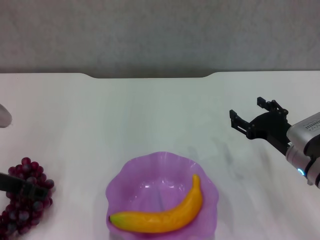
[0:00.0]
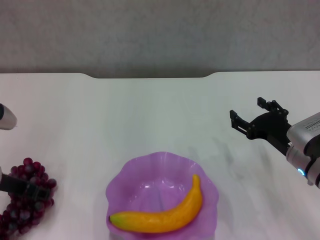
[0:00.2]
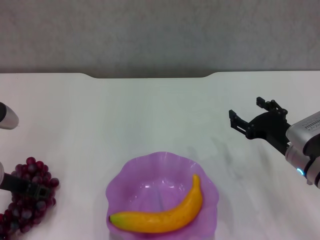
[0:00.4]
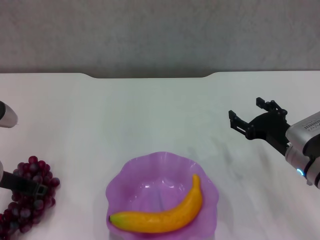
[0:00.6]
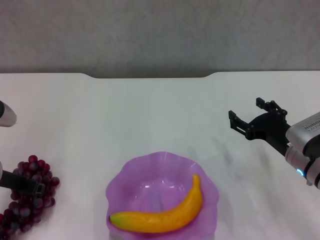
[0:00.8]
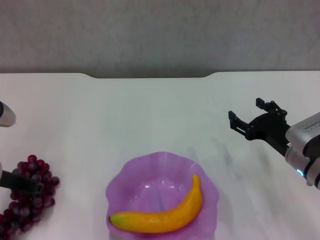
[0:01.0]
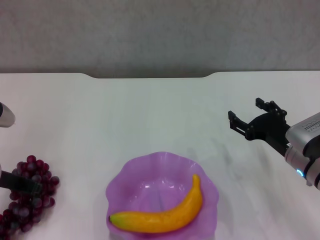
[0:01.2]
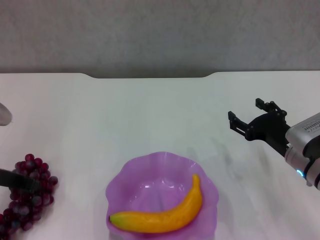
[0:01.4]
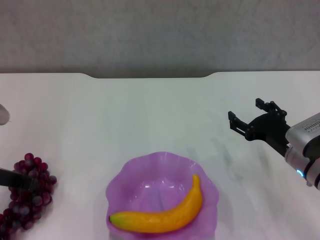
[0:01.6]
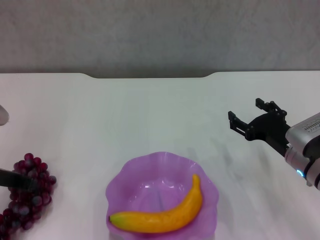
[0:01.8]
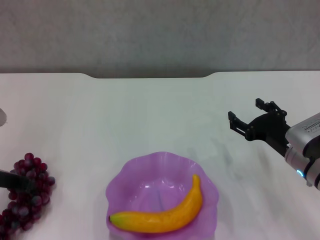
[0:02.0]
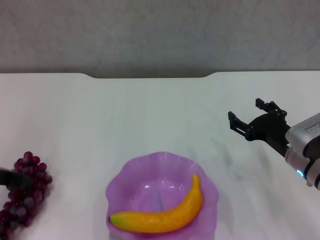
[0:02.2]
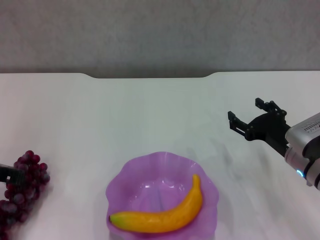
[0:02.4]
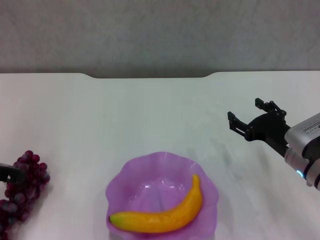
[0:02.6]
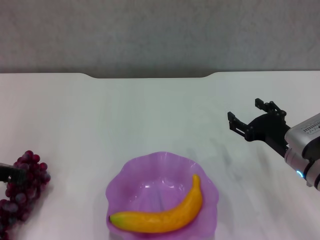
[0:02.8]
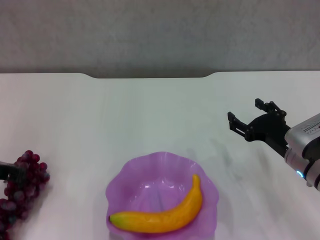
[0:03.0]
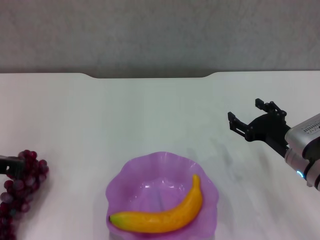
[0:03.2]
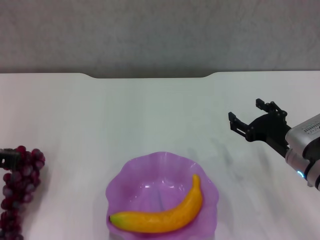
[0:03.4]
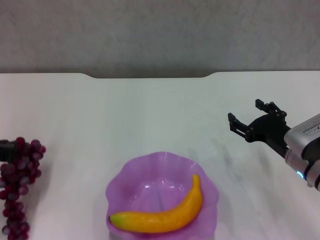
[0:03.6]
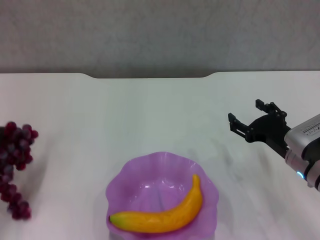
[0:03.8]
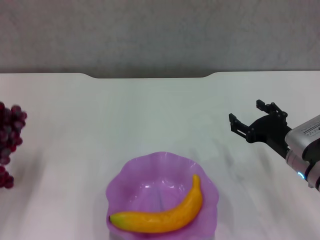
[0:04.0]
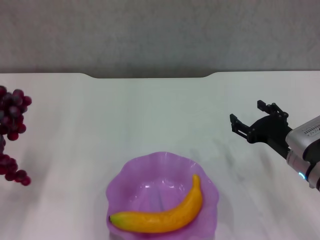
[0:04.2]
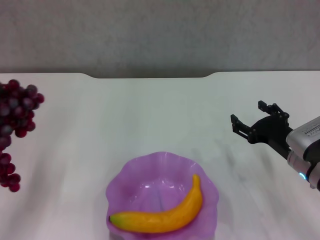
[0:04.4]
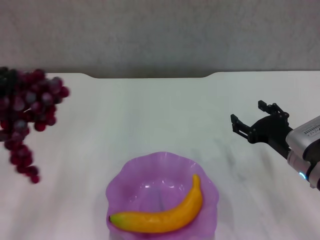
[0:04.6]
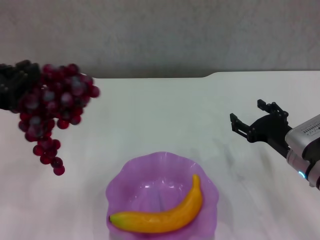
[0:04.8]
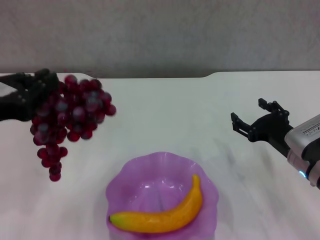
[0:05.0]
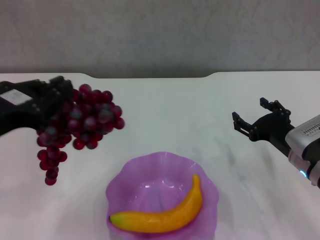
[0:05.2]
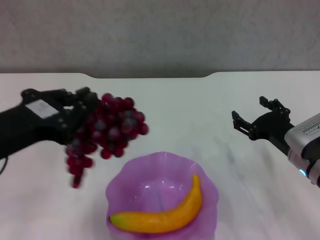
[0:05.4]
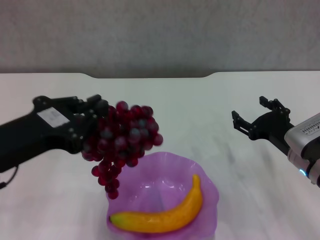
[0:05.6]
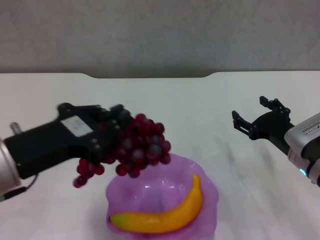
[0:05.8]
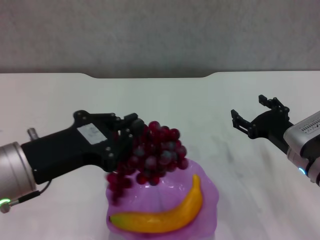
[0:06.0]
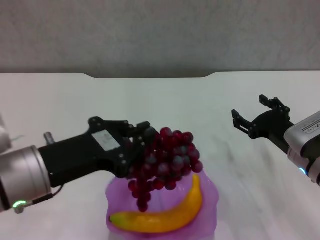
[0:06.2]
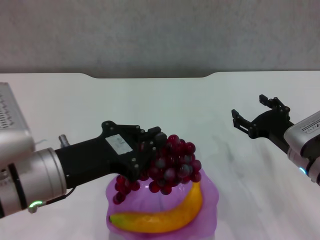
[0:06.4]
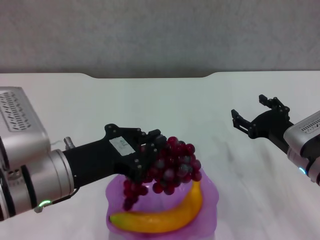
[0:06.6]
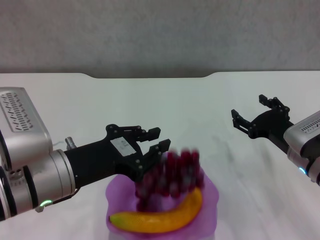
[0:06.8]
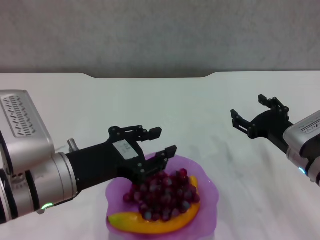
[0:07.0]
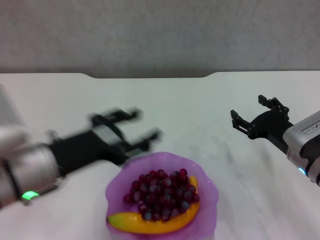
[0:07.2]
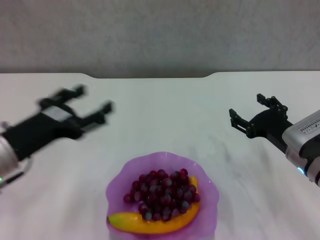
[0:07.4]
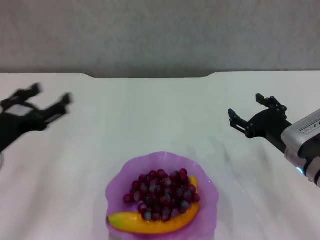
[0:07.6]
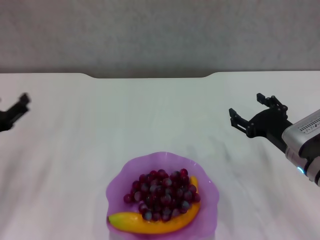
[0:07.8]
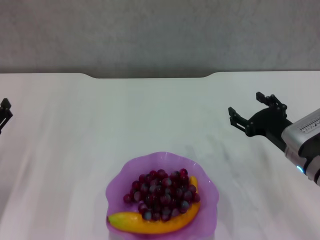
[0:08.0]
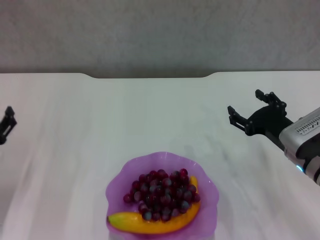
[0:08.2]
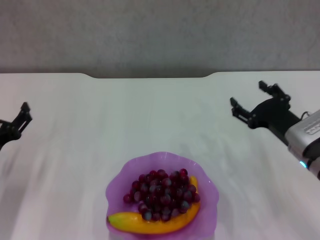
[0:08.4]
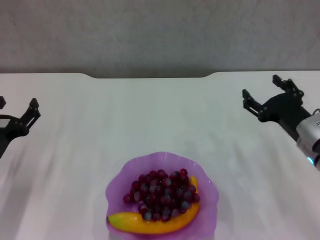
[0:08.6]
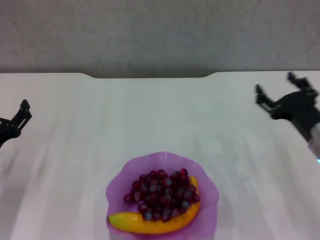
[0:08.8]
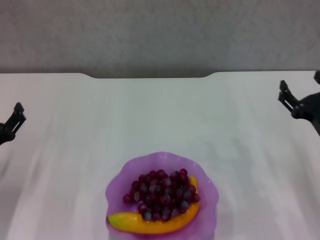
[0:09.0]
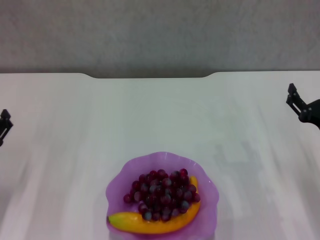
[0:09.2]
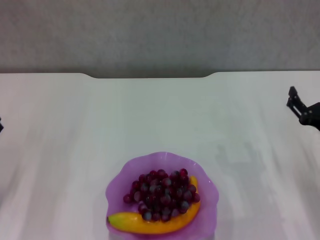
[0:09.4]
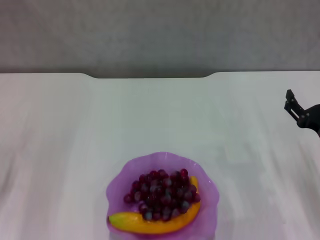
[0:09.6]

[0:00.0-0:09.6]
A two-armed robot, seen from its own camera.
Step, 0:00.8 to 0:07.0: Place the grape in the purple plate with left gripper.
0:00.0 to 0:01.6: The left gripper closes up.
0:01.6 to 0:03.2: The grippers move only a little.
0:03.2 to 0:04.8: The left gripper travels upward and backward by some 10 cm.
0:04.8 to 0:06.4: The left gripper moves to the right and downward, roughly 15 cm.
0:06.4 to 0:08.0: The left gripper is displaced to the left and downward by some 20 cm, and opens.
0:08.0 to 0:09.6: The right gripper changes place by approximately 5 cm.

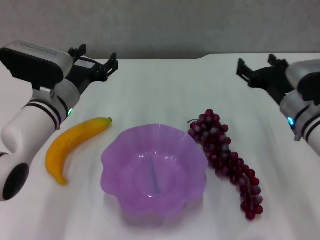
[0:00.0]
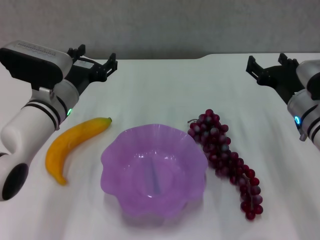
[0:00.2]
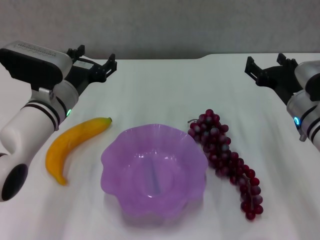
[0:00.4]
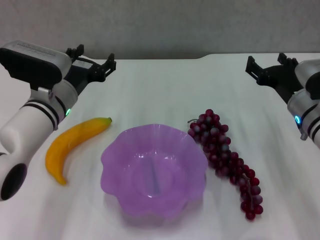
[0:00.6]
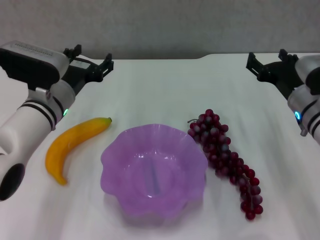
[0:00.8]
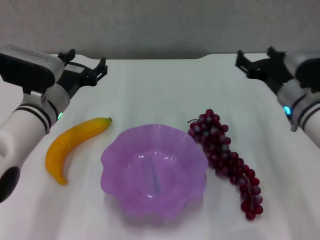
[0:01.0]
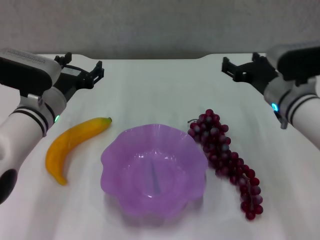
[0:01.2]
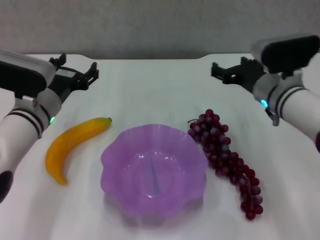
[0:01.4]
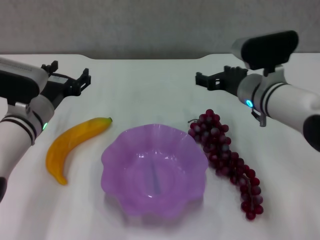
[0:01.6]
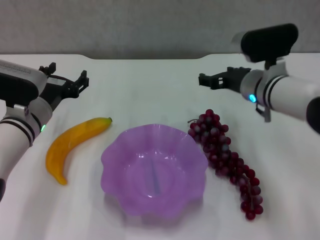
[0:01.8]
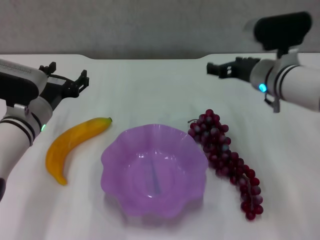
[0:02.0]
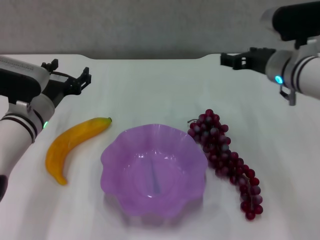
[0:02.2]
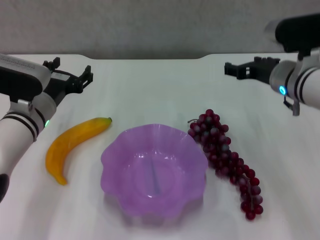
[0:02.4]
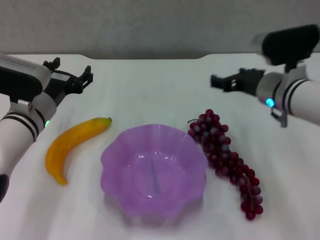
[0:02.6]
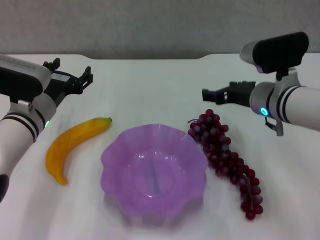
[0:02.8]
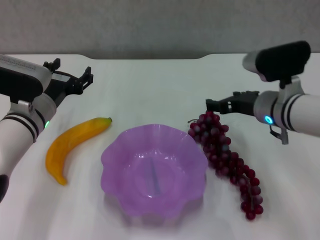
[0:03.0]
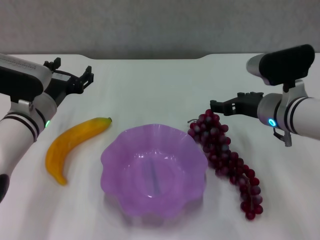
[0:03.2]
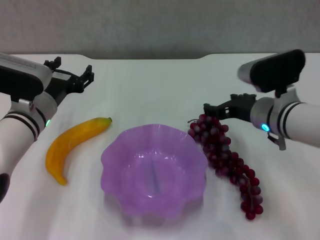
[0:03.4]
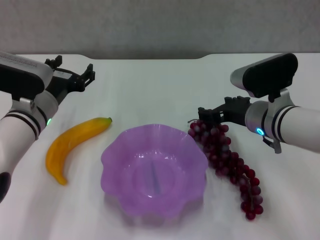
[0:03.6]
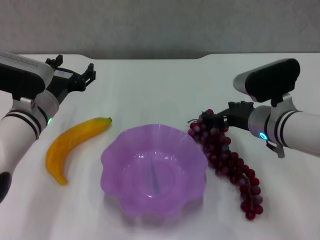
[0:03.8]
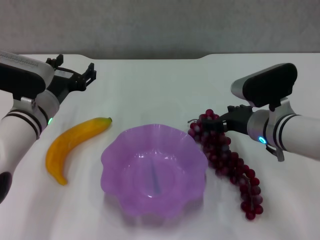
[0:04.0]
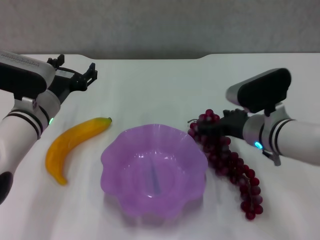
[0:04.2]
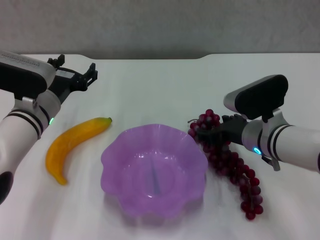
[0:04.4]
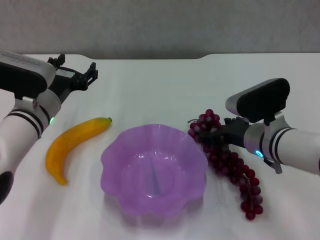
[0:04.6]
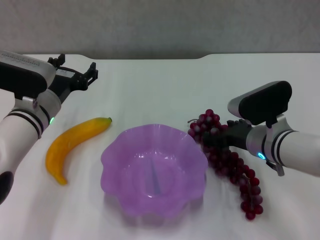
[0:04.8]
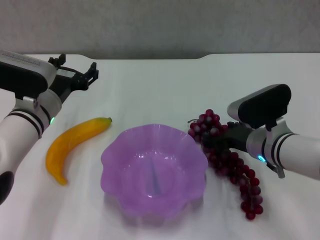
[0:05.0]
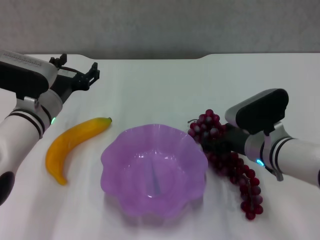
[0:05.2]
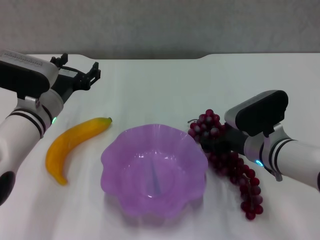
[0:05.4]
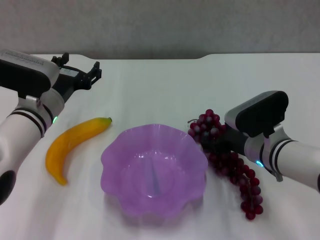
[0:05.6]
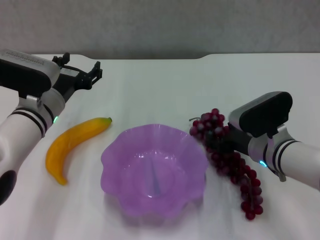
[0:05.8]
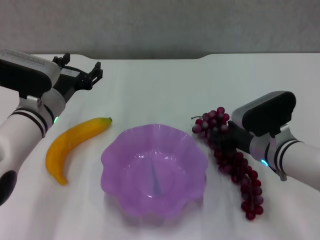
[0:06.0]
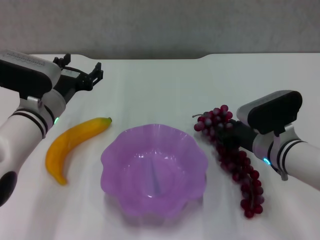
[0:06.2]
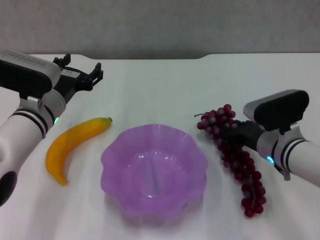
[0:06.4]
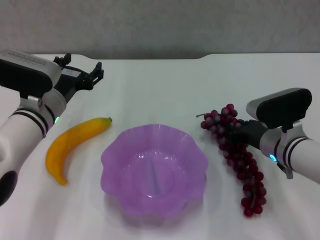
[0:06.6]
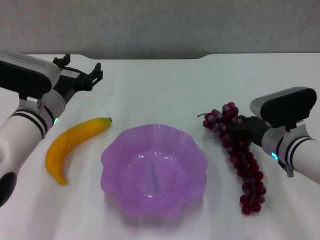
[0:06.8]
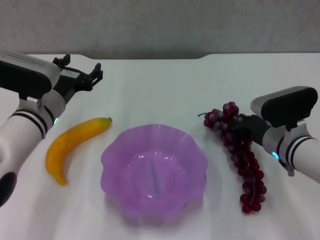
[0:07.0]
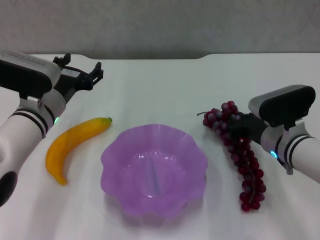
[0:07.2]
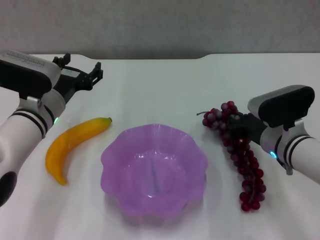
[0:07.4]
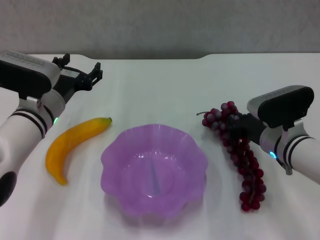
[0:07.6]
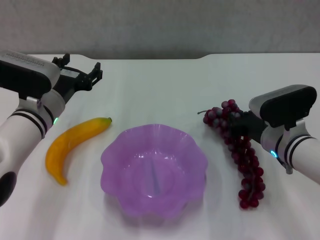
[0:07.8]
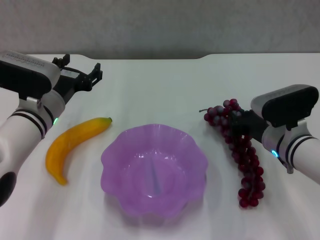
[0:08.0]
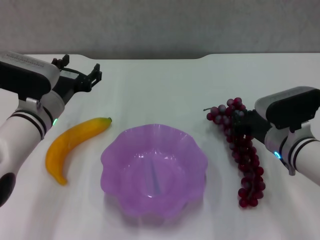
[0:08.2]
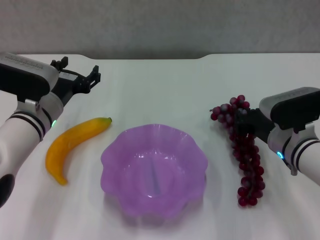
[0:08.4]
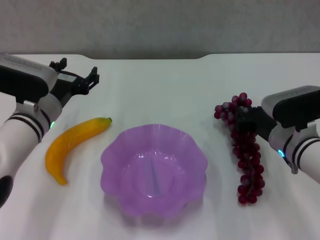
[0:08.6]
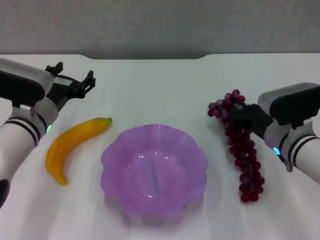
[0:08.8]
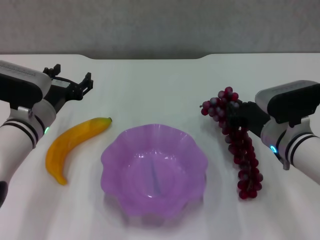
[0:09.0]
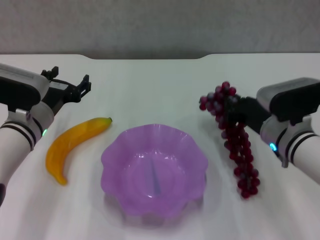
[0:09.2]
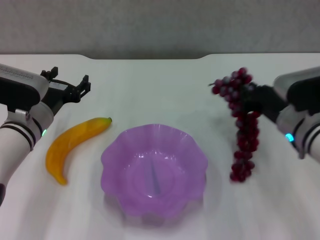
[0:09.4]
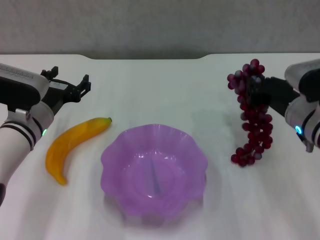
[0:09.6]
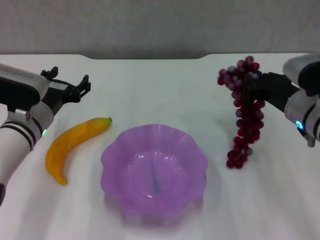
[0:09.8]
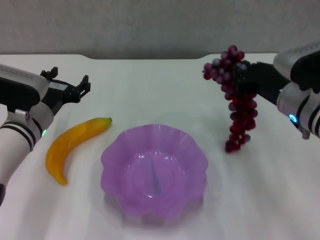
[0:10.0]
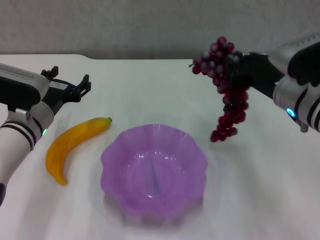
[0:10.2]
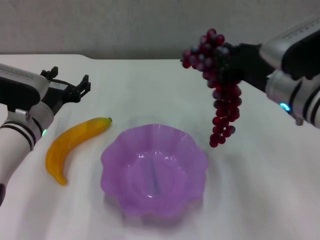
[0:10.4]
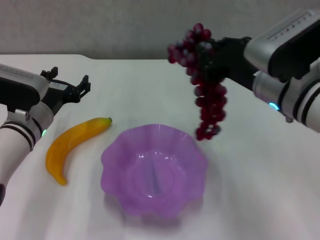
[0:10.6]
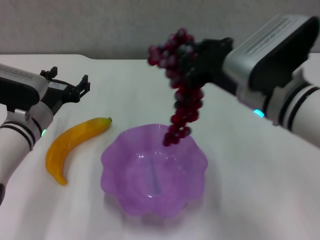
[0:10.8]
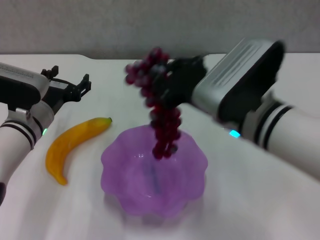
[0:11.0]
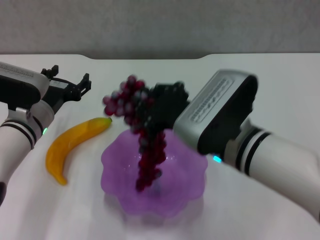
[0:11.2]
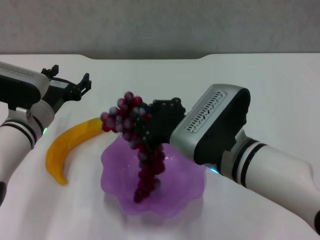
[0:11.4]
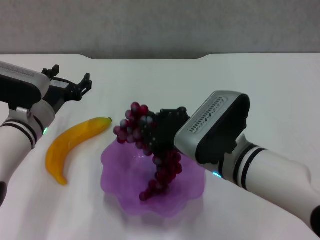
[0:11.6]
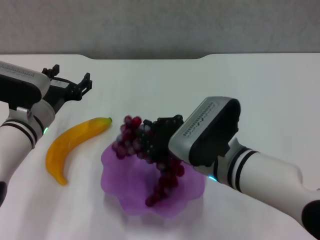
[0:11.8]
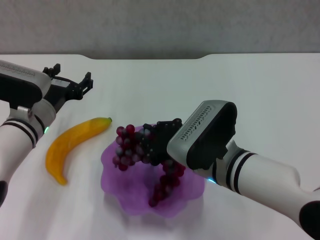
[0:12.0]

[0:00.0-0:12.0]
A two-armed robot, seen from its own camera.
Step, 0:00.0 to 0:08.2: Grasp the grape with right gripper.
0:00.0 to 0:01.6: The right gripper moves to the left, roughly 5 cm.
0:01.6 to 0:03.0: There are only small adjustments of the grippers.
0:03.0 to 0:04.4: The grippers move only a little.
0:04.4 to 0:06.0: There are only small adjustments of the grippers.
0:06.0 to 0:07.6: The right gripper closes its fingers.
0:07.6 to 0:09.0: The grippers move only a little.
0:09.0 to 0:10.4: The right gripper shifts approximately 10 cm upward.
0:10.4 to 0:12.0: The right gripper travels to the left and downward by some 10 cm.

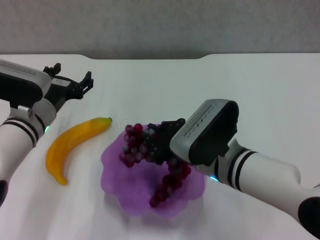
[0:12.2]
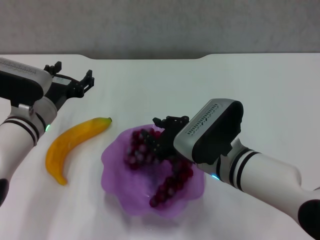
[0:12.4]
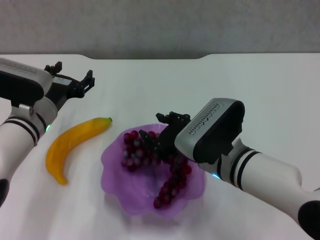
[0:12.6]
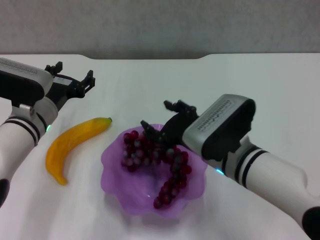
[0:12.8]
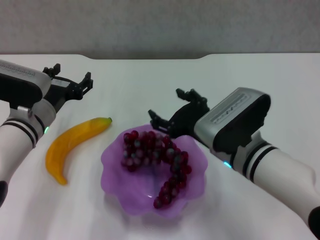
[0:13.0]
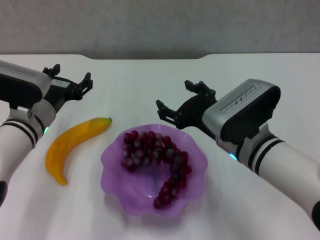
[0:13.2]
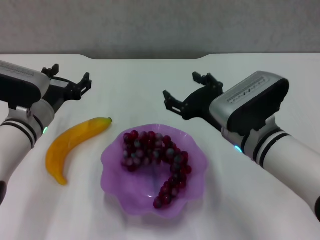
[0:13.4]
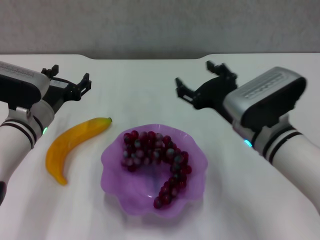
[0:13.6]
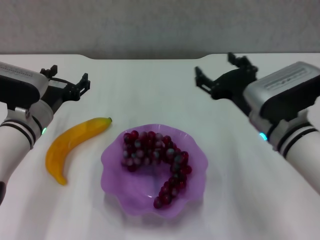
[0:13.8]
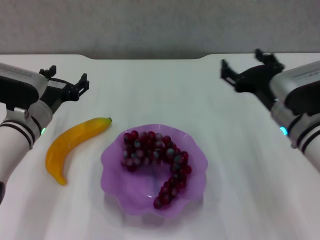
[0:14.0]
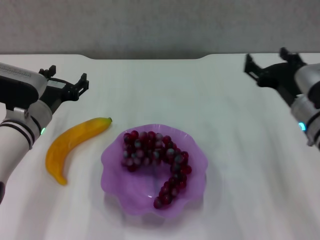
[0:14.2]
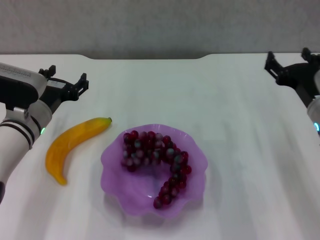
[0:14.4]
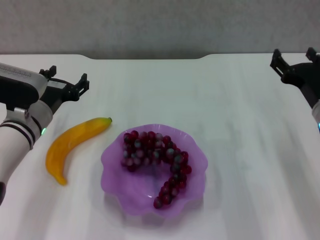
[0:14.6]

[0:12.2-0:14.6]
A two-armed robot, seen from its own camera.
0:12.2 to 0:13.4: The right gripper opens its fingers.
0:13.4 to 0:14.6: The right gripper goes about 15 cm to the right.
